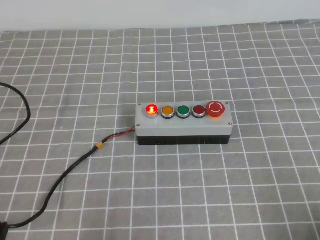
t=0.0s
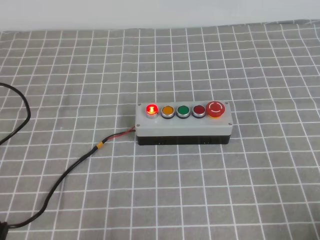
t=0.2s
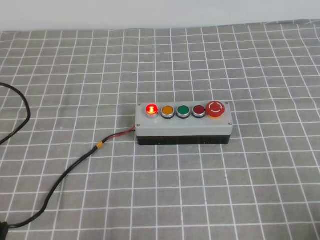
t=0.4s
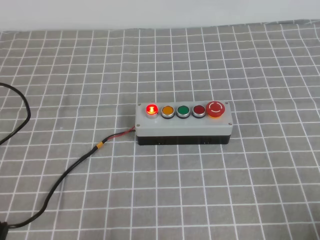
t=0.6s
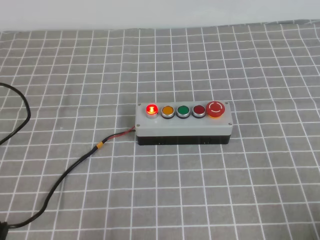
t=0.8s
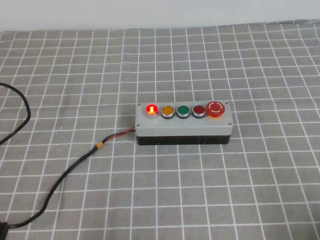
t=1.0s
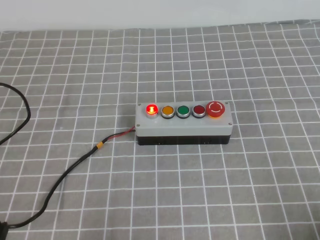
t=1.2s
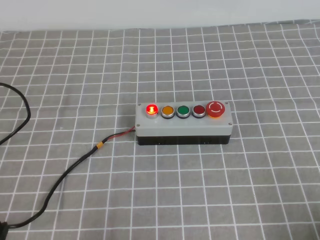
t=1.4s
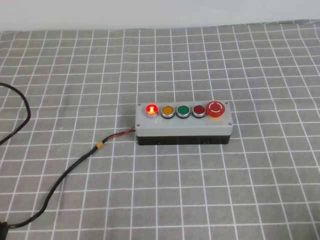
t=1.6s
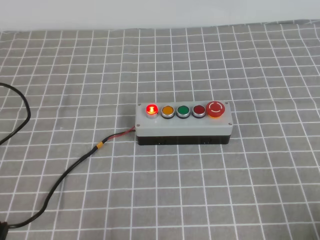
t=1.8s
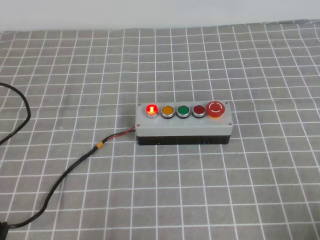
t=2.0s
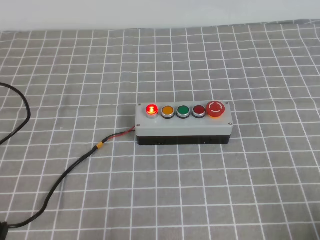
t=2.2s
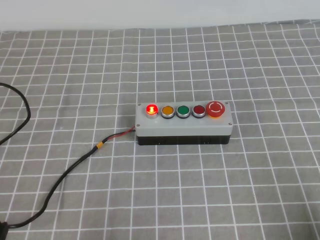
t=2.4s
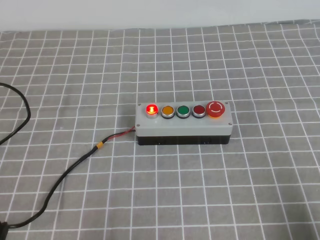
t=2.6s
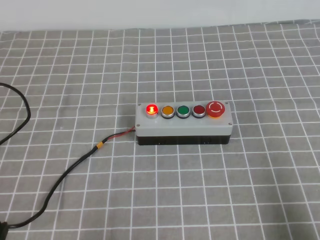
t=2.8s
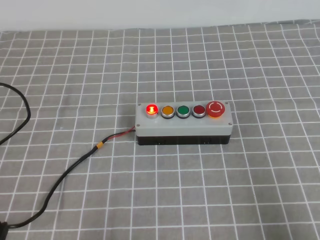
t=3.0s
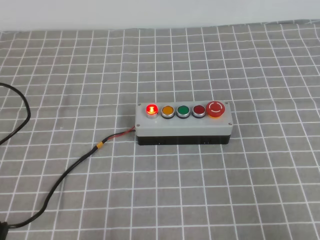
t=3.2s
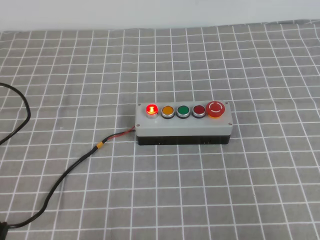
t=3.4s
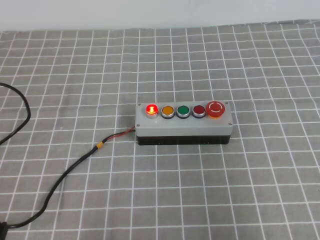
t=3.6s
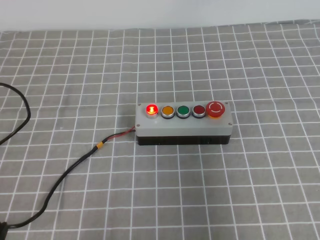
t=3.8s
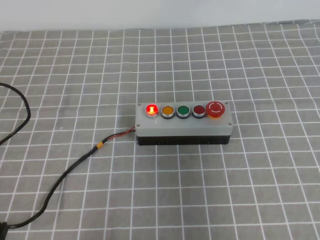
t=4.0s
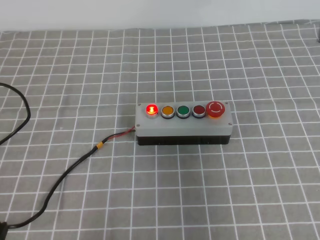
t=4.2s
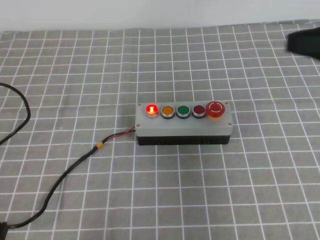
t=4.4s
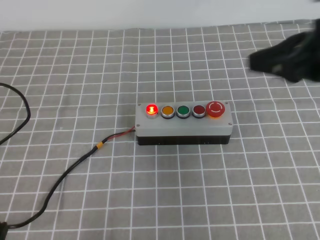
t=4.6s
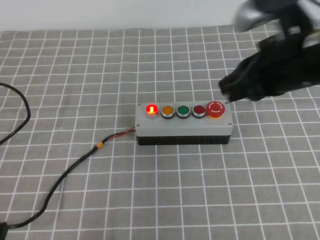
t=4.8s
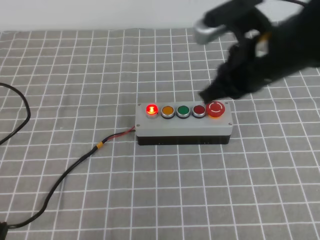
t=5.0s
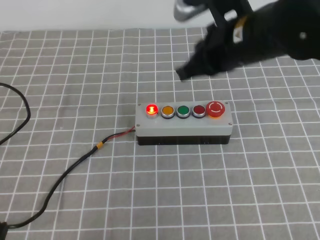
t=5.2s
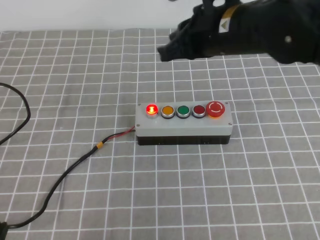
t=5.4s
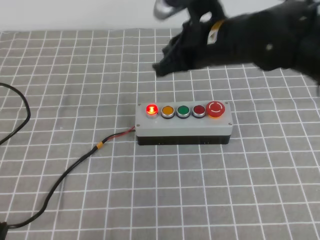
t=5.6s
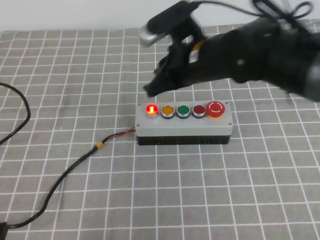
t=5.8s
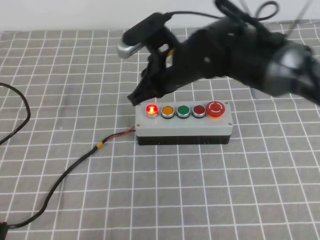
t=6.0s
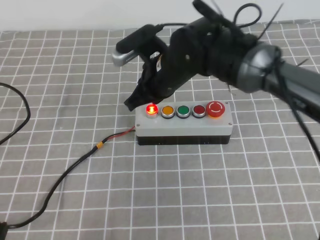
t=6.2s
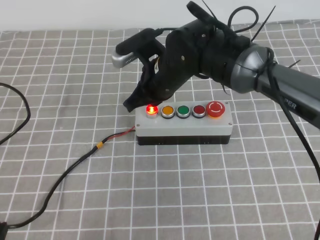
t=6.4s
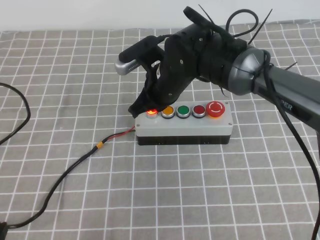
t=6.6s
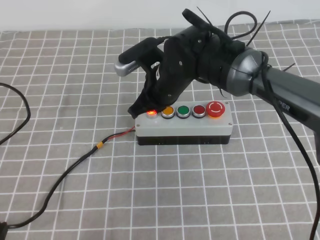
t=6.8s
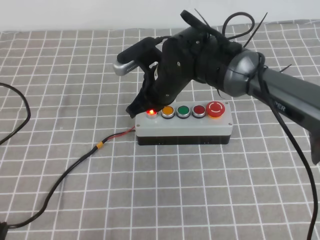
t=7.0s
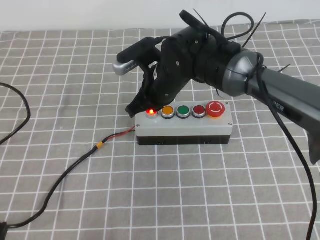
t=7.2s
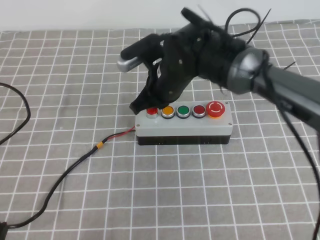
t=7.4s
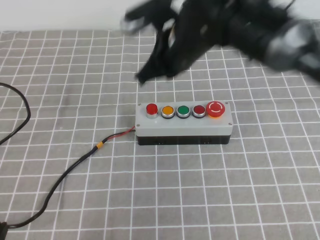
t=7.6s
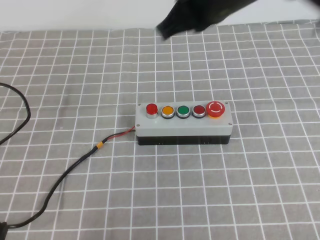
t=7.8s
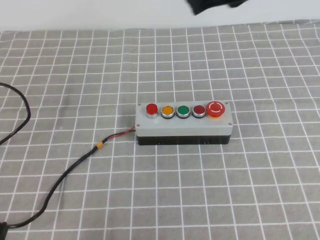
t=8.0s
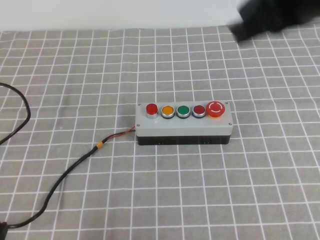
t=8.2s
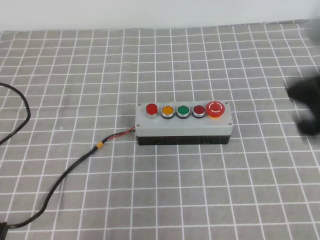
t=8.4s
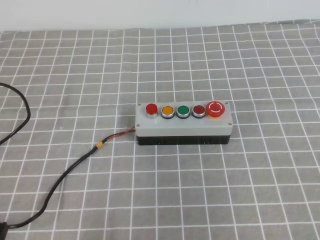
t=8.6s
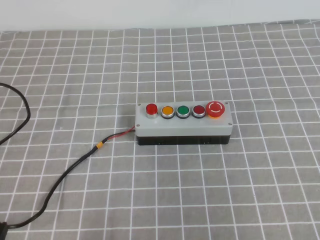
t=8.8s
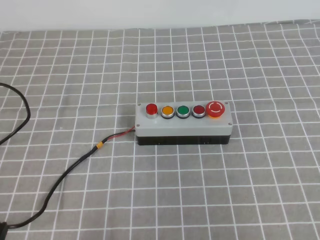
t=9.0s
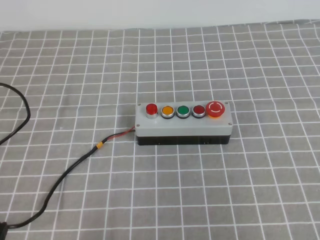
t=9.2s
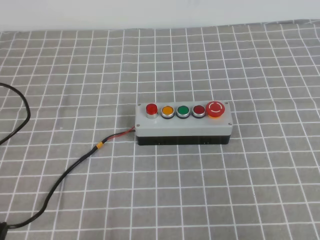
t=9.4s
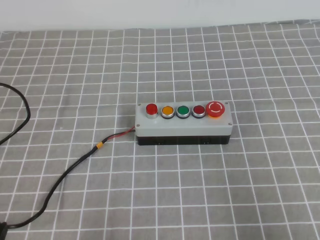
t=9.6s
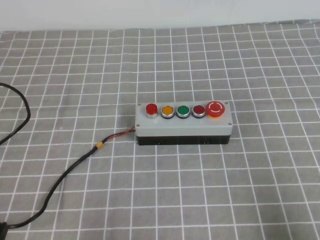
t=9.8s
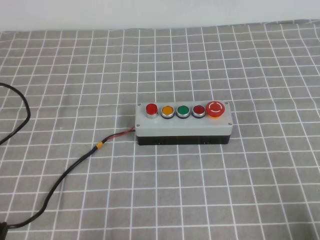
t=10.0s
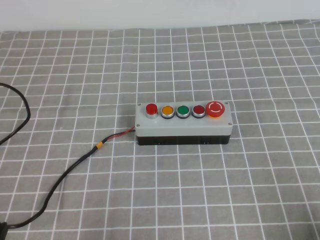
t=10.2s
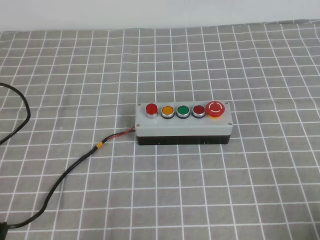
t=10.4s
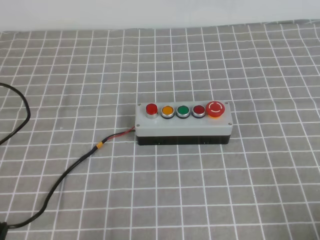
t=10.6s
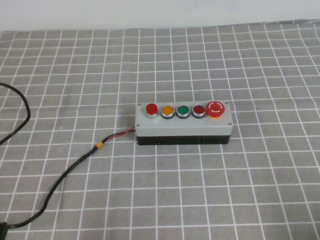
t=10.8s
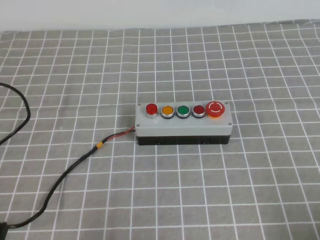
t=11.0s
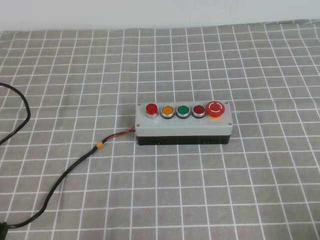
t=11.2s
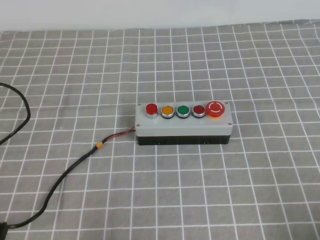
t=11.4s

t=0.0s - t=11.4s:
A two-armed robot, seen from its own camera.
Task of the whole recording: press the button switch on the grey tablecloth with the right gripper to turn off the button.
Step, t=0.0s - t=11.4s: Press the button to turn off.
t=0.0s - t=1.4s: The two grippers keep their place.
t=2.8s - t=4.2s: The right gripper moves upward and forward, roughly 25 cm.
t=4.2s - t=5.6s: The right gripper shifts approximately 25 cm to the left and forward.
t=5.6s - t=7.2s: The right gripper travels downward and to the left by approximately 10 cm.
t=7.2s - t=8.6s: The right gripper is displaced backward, to the right and upward by some 35 cm.
t=8.6s - t=10.0s: The right gripper goes about 20 cm downward and to the right.
